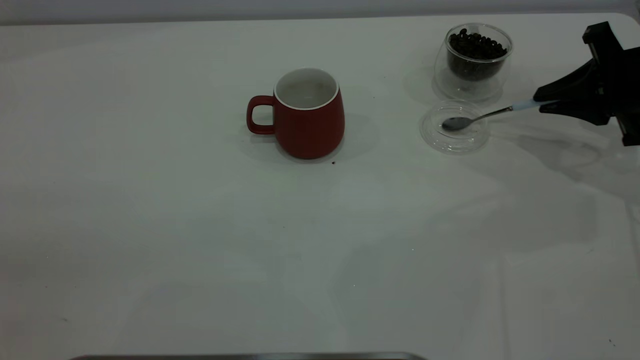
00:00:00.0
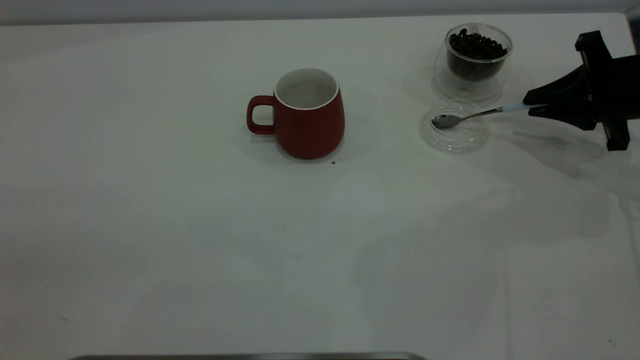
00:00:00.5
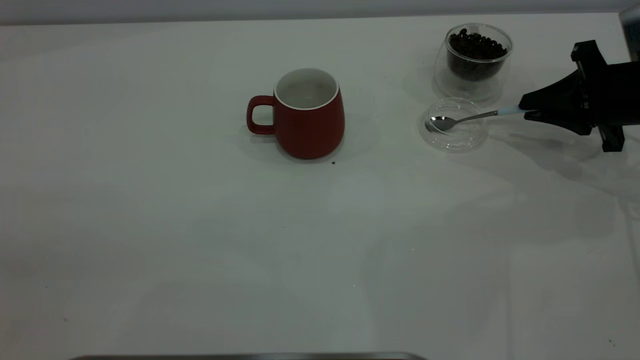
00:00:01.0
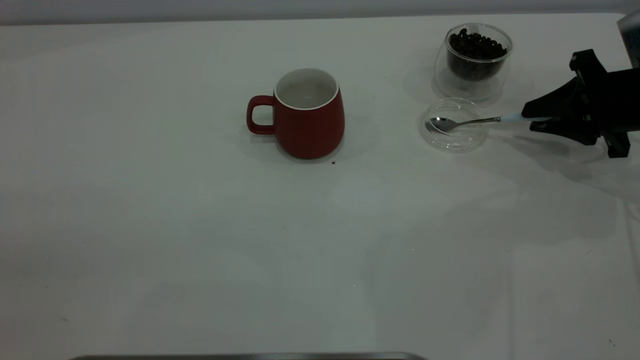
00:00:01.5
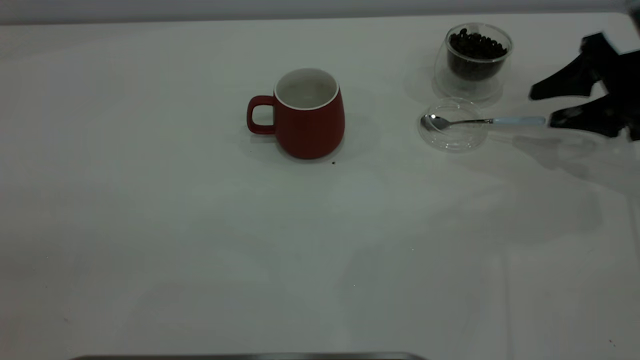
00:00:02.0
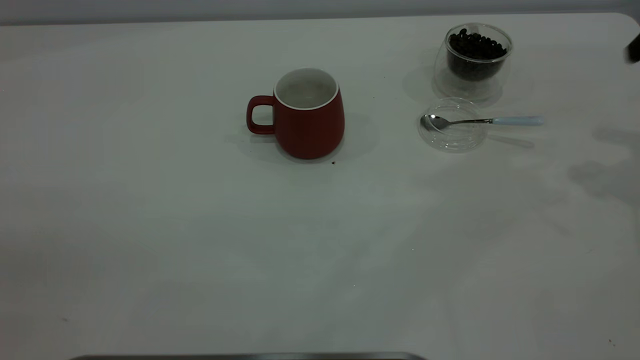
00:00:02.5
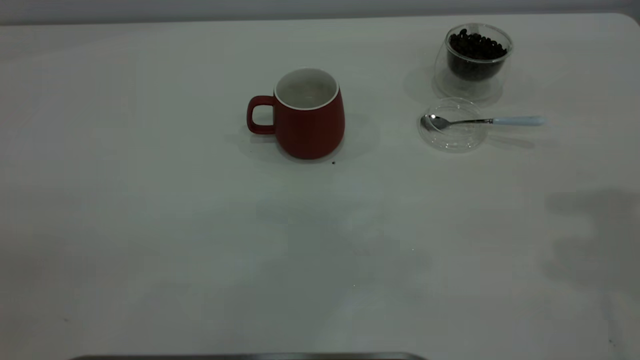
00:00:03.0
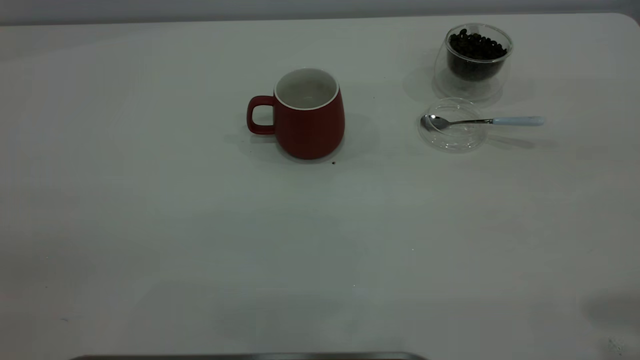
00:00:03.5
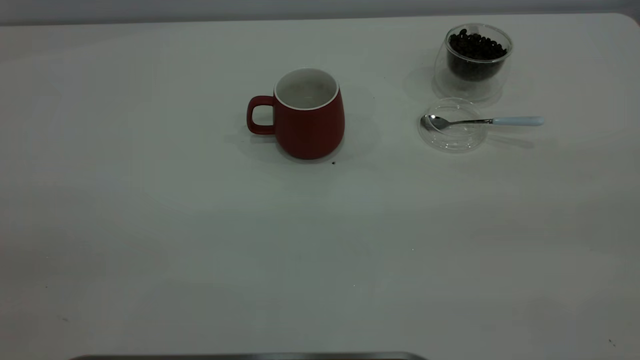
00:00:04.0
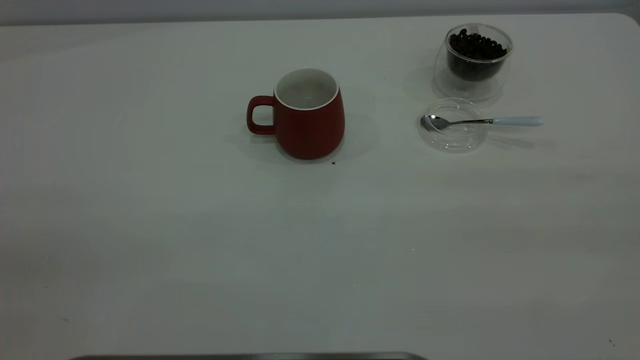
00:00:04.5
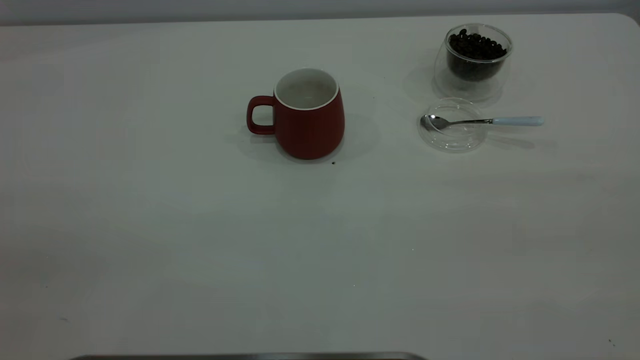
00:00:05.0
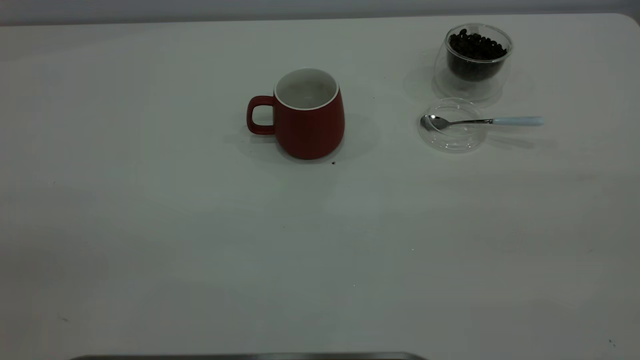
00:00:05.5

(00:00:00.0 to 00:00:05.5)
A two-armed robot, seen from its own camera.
Task of the whole recording: the left gripper place the red cup in the center of the table, the right gripper take the blue spoon from the cup lid and scoop out the coffee beans from the coffee cup and put them into the red cup, the right gripper put the spoon back into the cup lid.
Step, 00:00:00.0 - 00:00:02.0: Place the spoon back in its original place.
00:00:00.0 - 00:00:02.0: The right gripper opens its fingers.
00:00:02.0 - 00:00:03.5: The right gripper heads upward and backward, covering about 40 cm.

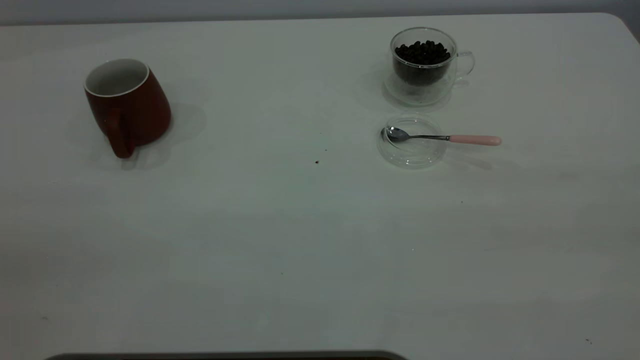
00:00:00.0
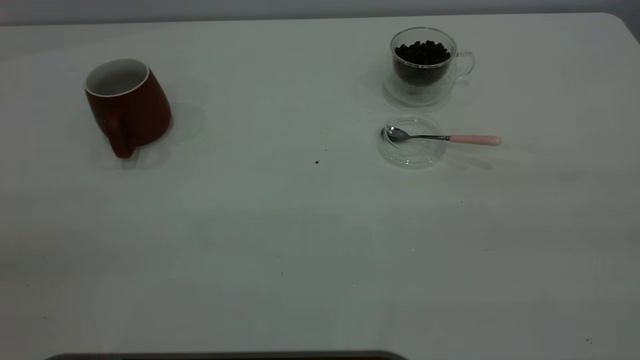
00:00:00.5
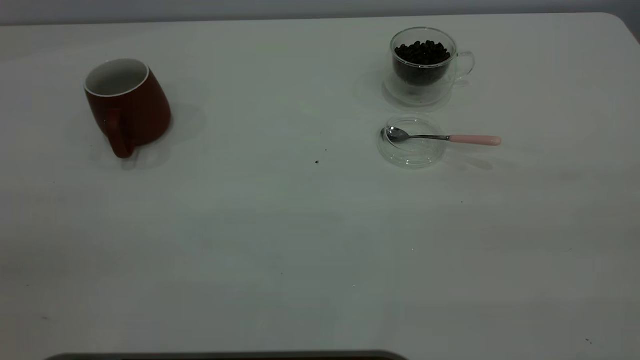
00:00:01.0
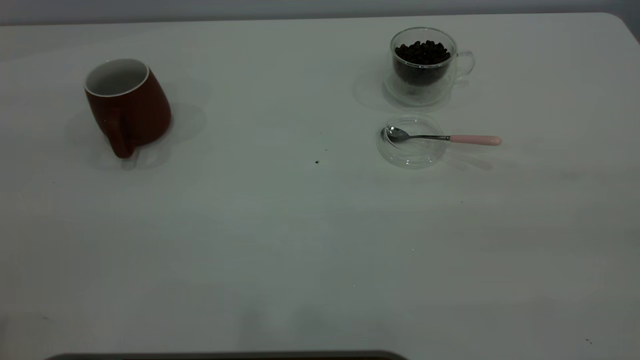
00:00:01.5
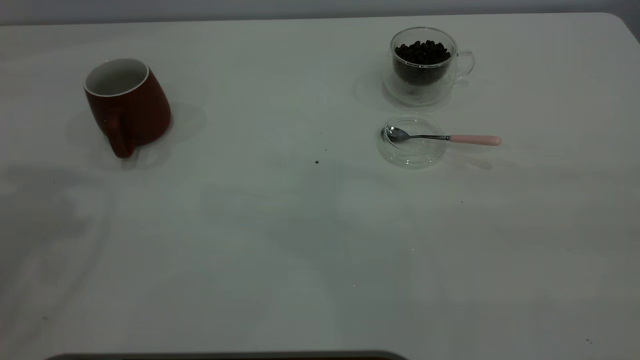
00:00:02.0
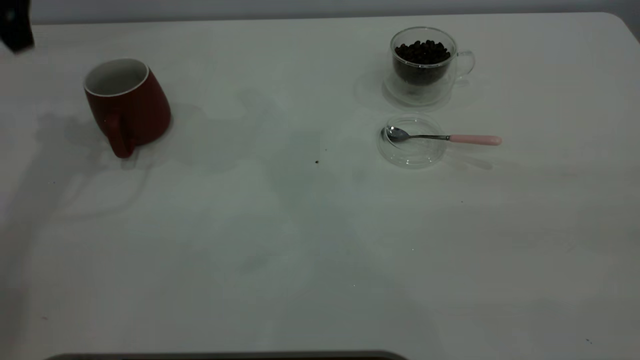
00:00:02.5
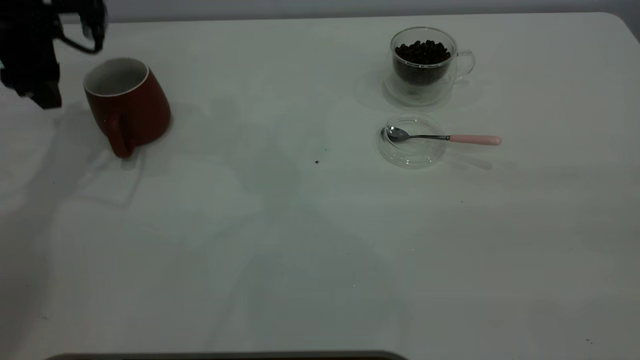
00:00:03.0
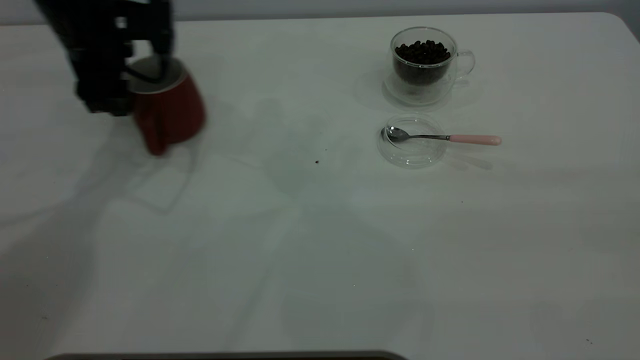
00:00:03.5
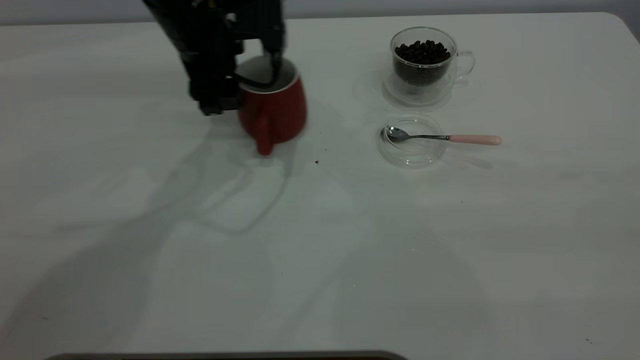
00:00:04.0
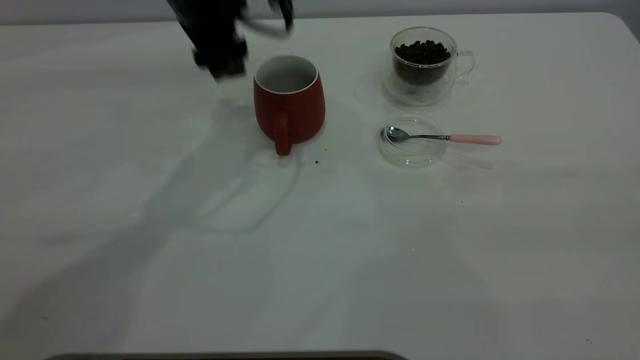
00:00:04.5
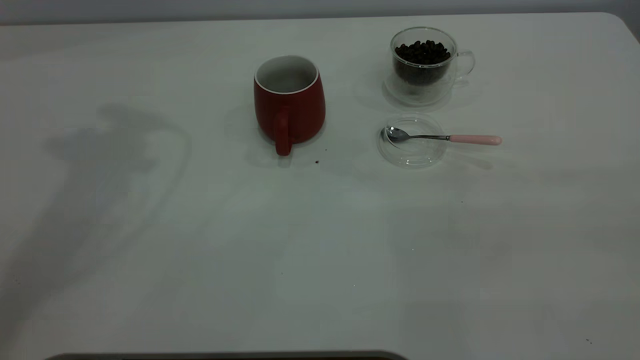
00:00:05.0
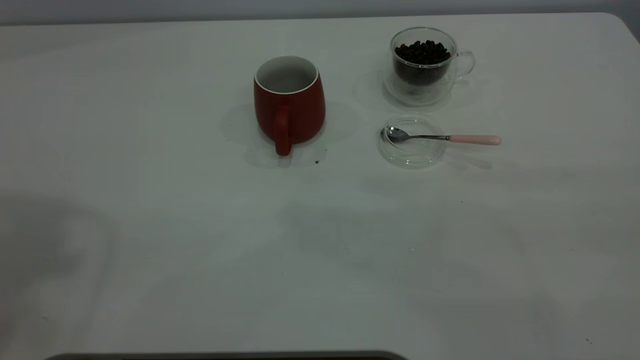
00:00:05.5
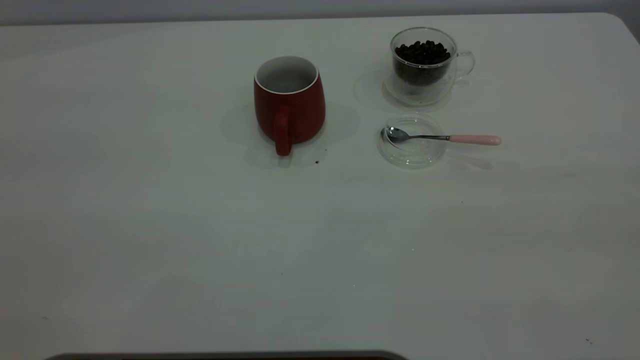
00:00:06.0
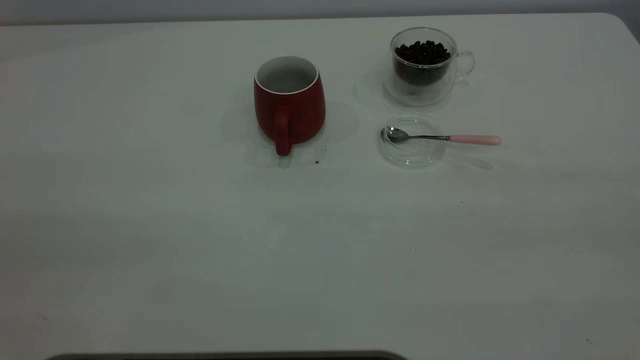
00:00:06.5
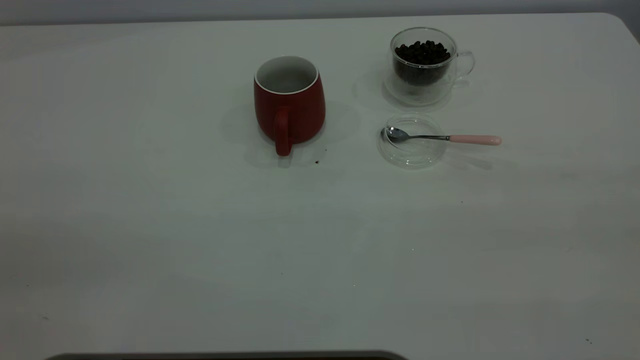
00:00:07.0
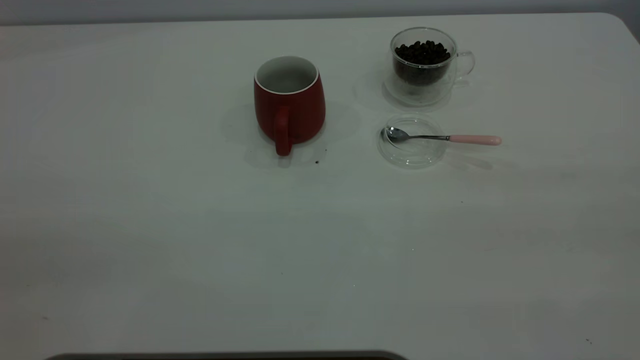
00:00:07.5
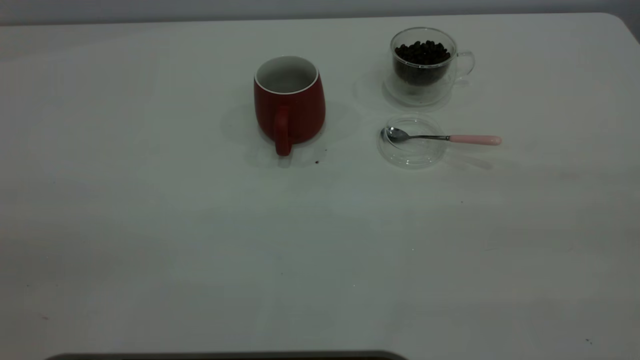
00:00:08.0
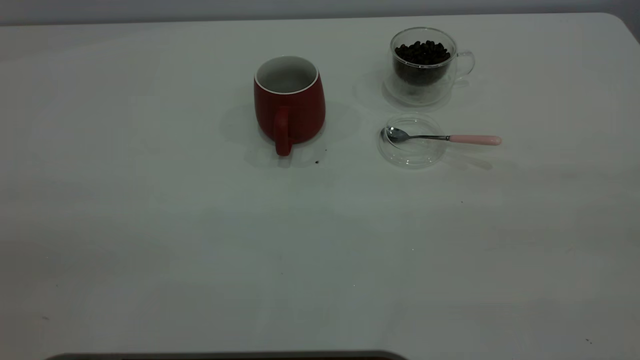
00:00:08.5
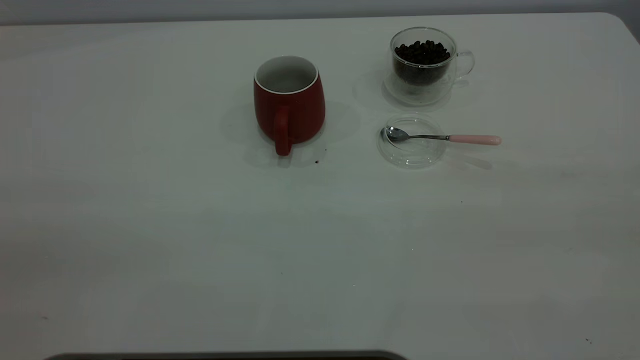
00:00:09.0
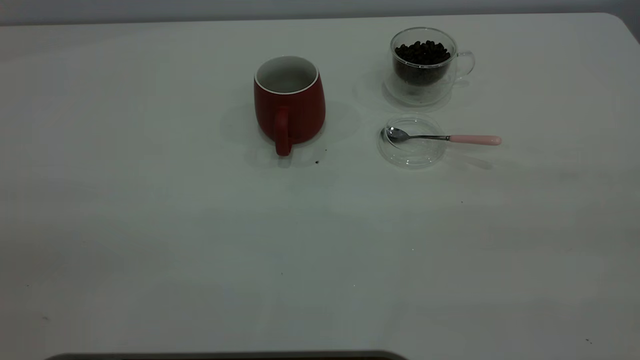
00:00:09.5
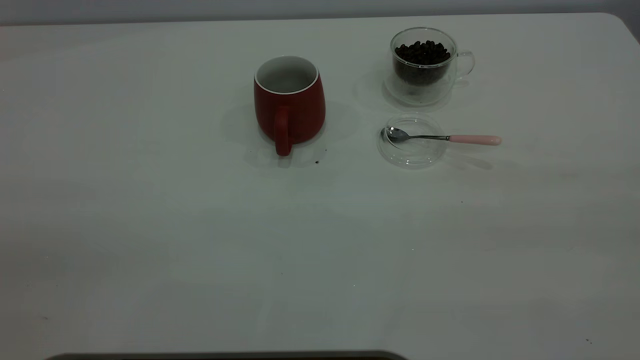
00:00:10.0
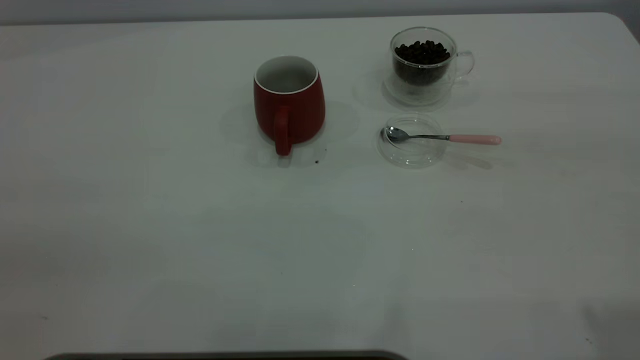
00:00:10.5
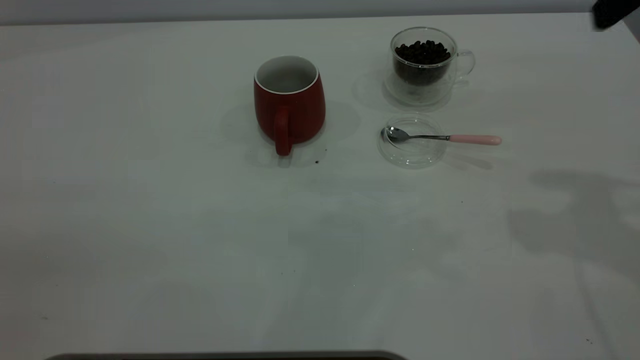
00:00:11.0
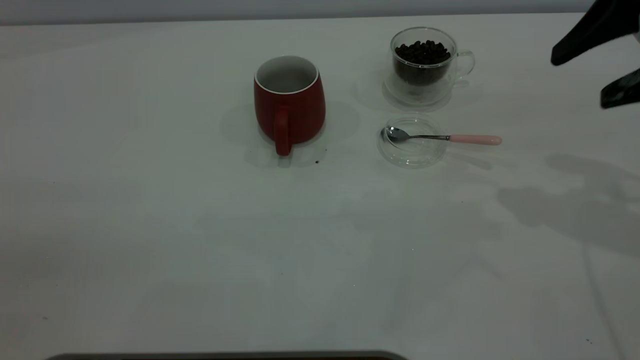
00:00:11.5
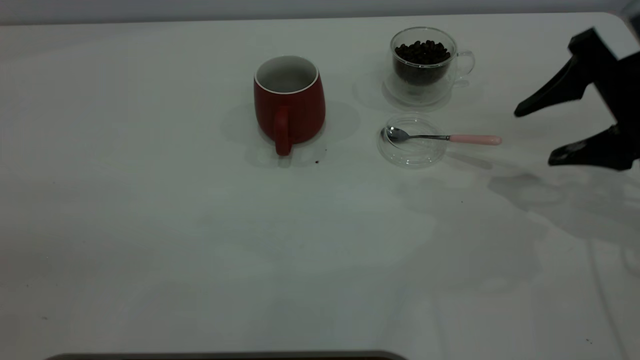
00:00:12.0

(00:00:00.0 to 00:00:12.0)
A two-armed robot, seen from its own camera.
Task of the whole recording: the left gripper place the red cup in the center of the table, the right gripper take the pink spoon from the cup lid and scoop out the coffee beans from the coffee cup and put them into the red cup, the right gripper put the spoon back into the cup lid.
Step, 00:00:00.0 - 00:00:04.0: Move the cup to the center of view.
00:00:02.0 - 00:00:04.0: The left gripper is displaced downward, to the right and forward by some 30 cm.
00:00:04.0 - 00:00:06.0: The left gripper is displaced backward, upward and to the left by some 50 cm.
00:00:08.0 - 00:00:10.0: The two grippers keep their place.
00:00:10.0 - 00:00:12.0: The right gripper moves forward and downward, approximately 40 cm.

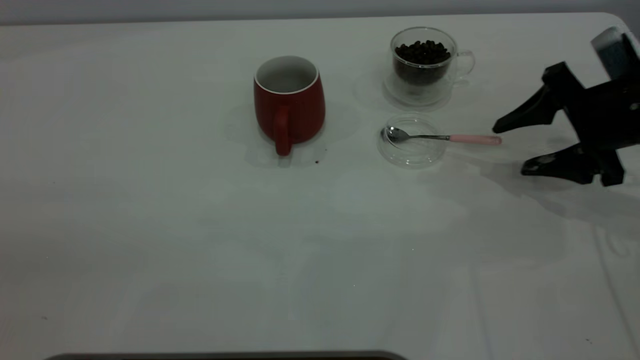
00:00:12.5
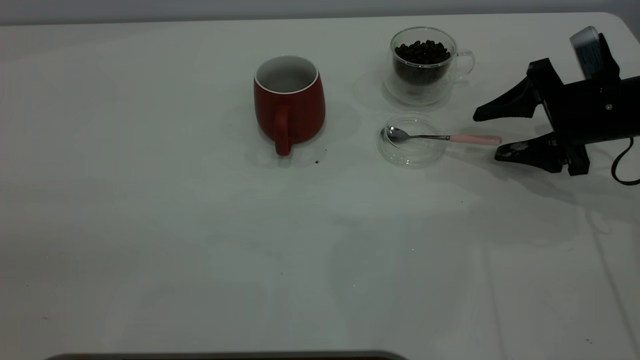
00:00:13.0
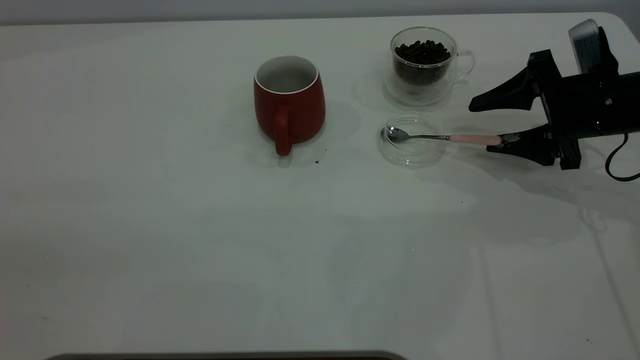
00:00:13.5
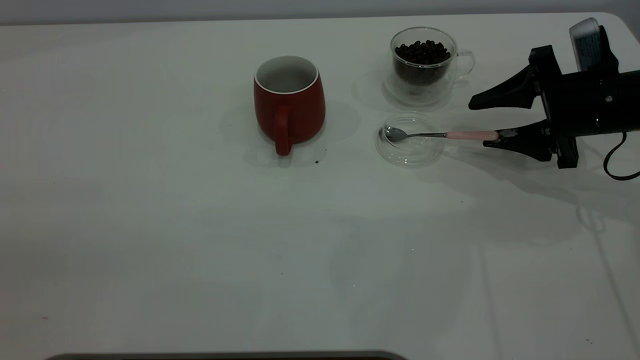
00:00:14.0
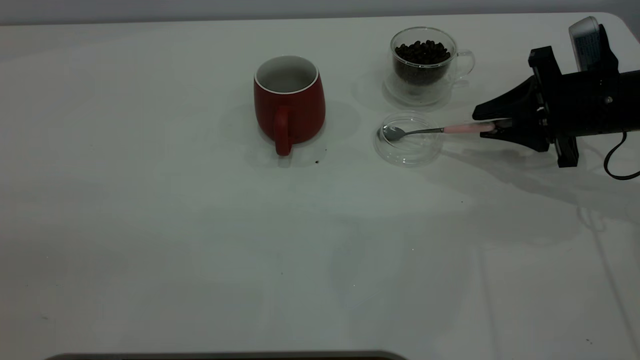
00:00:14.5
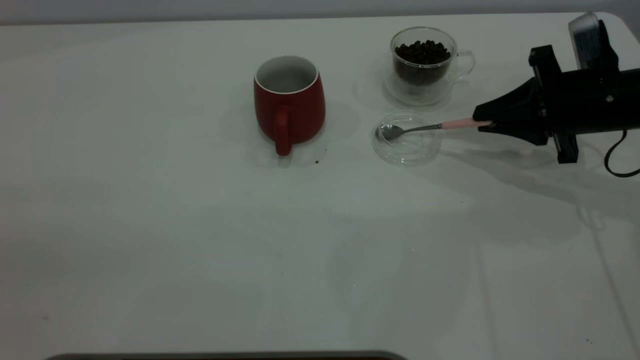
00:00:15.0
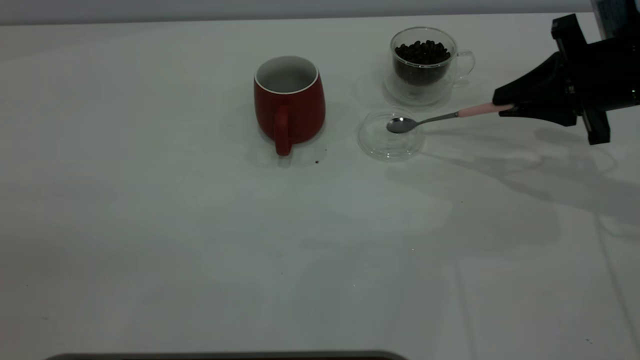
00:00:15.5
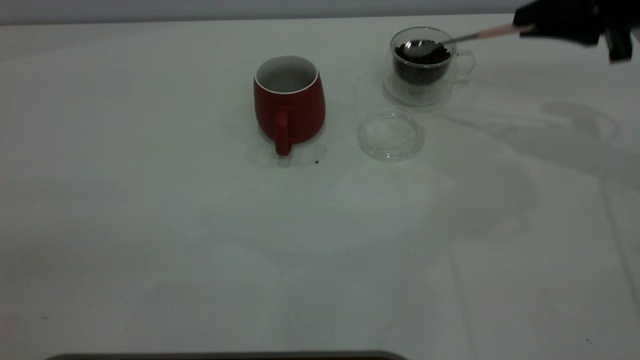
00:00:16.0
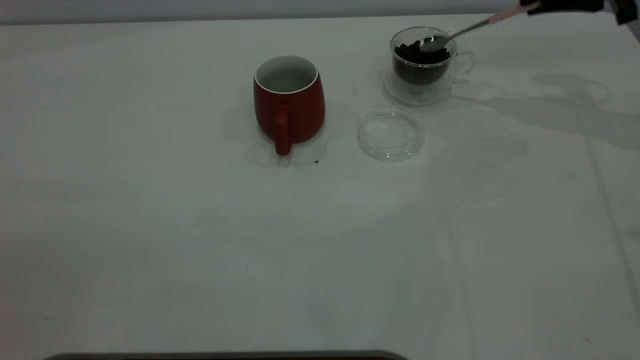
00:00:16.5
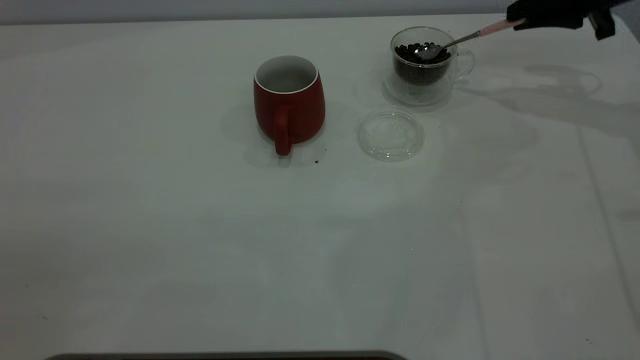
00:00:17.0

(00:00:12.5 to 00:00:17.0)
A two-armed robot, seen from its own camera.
Task of the whole recording: the left gripper place the red cup in the center of the table, the right gripper take the pink spoon from the cup lid and scoop out the coffee beans from the coffee cup and put them into the red cup, the right gripper put the spoon back into the cup lid.
Step, 00:00:12.5 - 00:00:15.5: Pick up the spoon.
00:00:12.5 - 00:00:14.5: The right gripper closes its fingers.
00:00:14.5 - 00:00:17.0: The right gripper shifts roughly 15 cm forward and upward.
